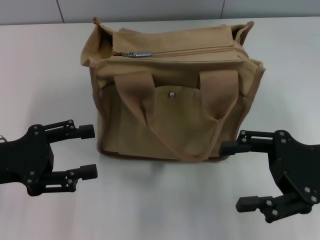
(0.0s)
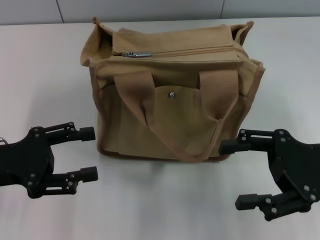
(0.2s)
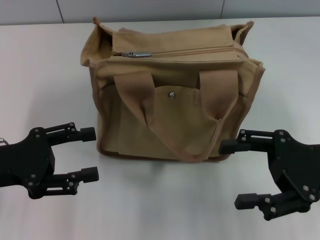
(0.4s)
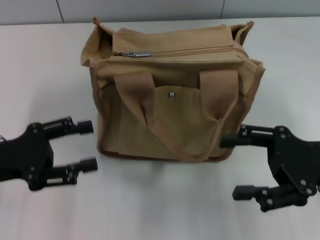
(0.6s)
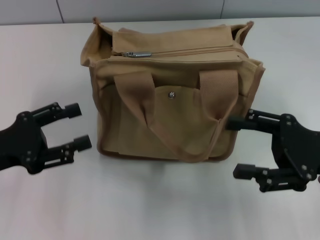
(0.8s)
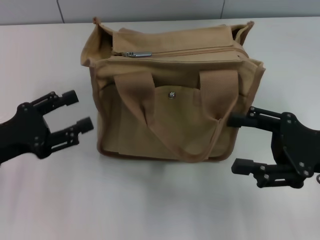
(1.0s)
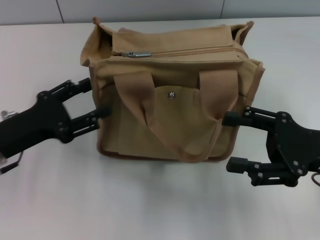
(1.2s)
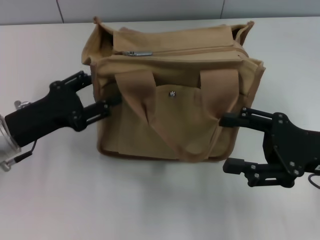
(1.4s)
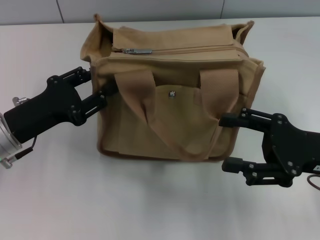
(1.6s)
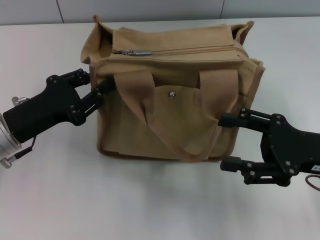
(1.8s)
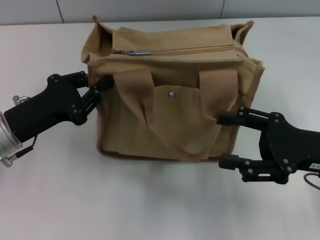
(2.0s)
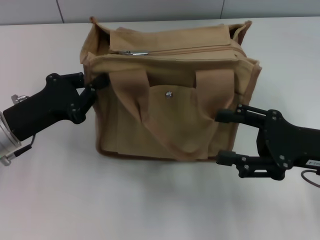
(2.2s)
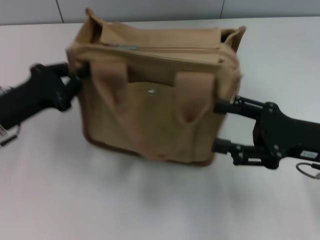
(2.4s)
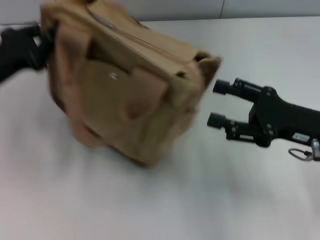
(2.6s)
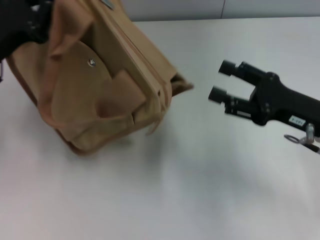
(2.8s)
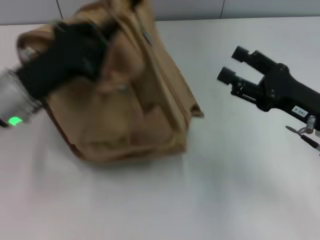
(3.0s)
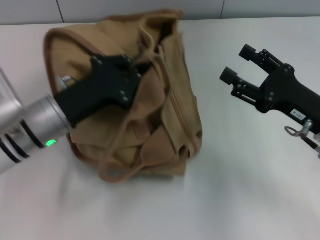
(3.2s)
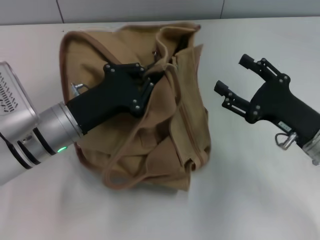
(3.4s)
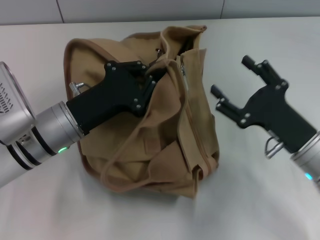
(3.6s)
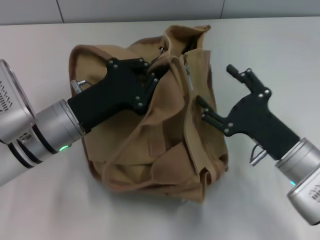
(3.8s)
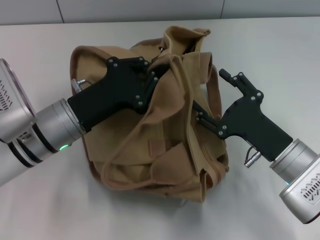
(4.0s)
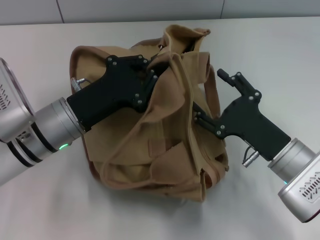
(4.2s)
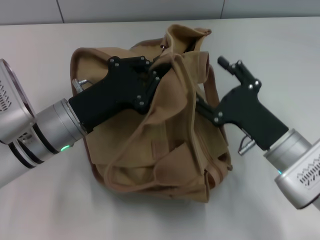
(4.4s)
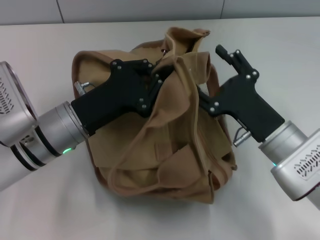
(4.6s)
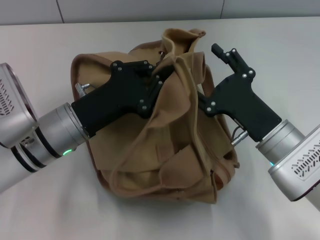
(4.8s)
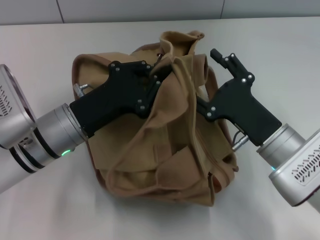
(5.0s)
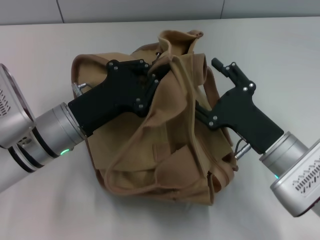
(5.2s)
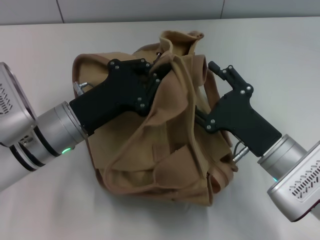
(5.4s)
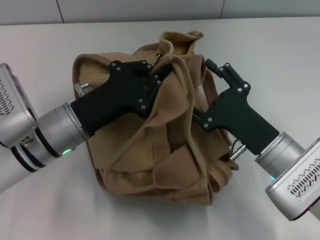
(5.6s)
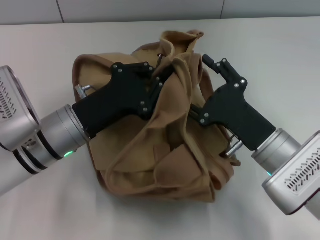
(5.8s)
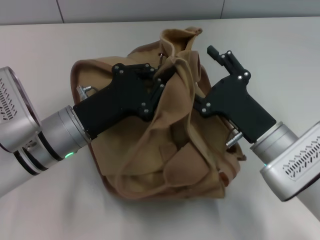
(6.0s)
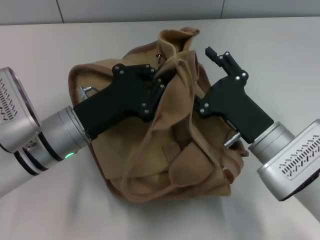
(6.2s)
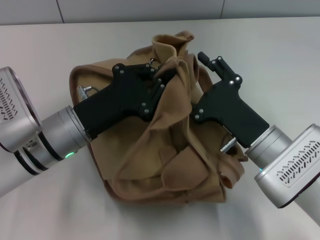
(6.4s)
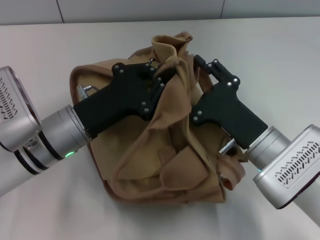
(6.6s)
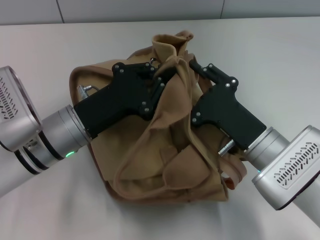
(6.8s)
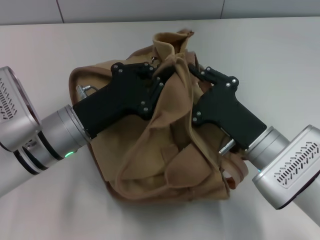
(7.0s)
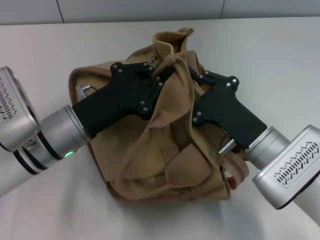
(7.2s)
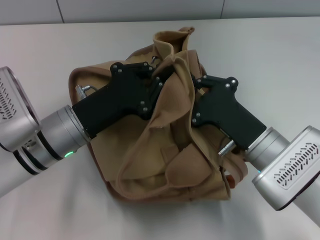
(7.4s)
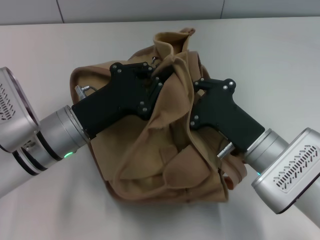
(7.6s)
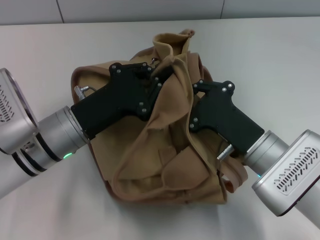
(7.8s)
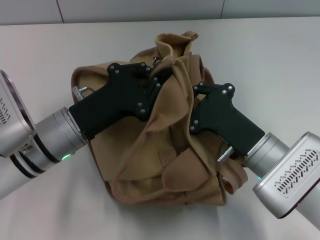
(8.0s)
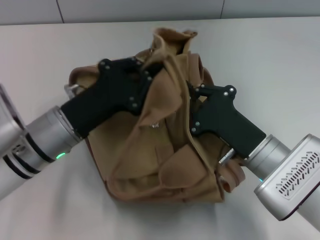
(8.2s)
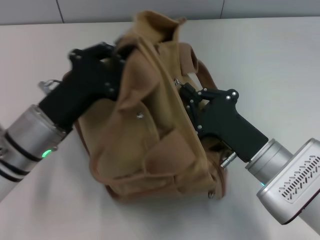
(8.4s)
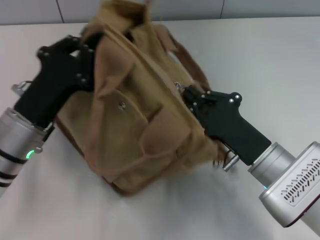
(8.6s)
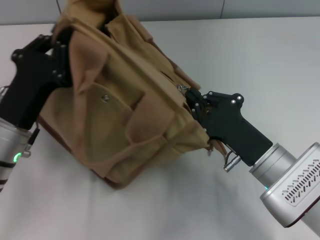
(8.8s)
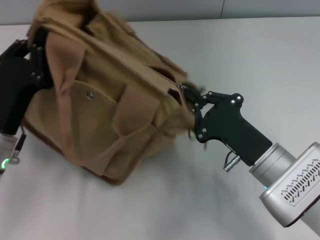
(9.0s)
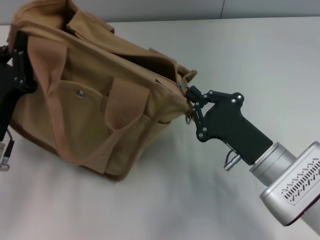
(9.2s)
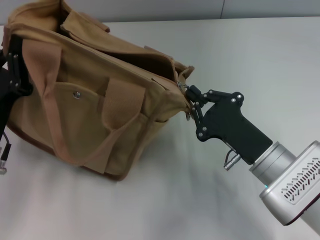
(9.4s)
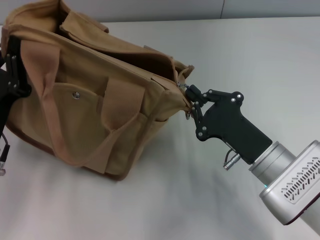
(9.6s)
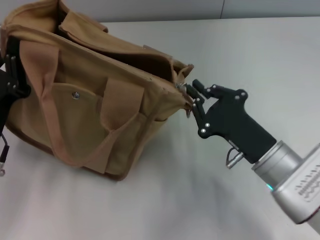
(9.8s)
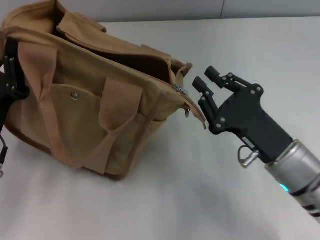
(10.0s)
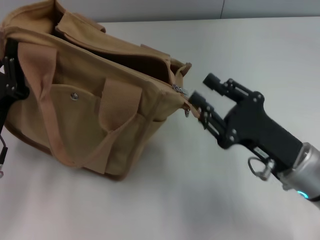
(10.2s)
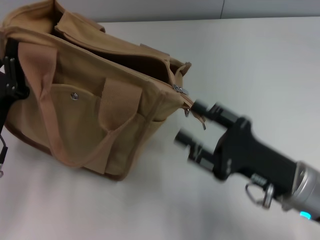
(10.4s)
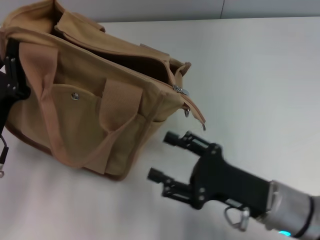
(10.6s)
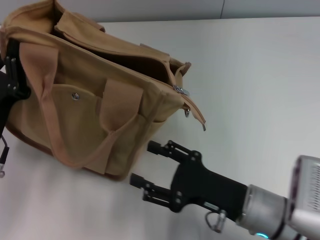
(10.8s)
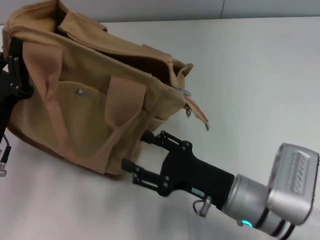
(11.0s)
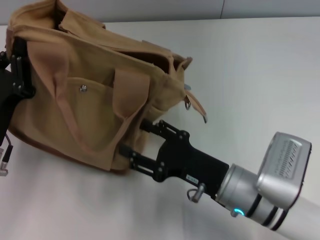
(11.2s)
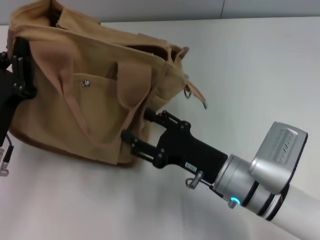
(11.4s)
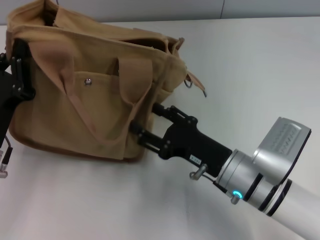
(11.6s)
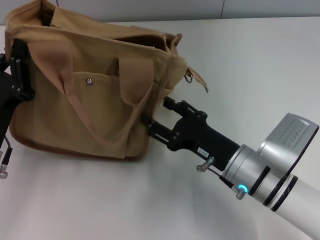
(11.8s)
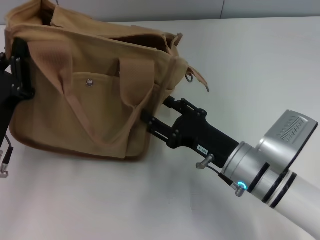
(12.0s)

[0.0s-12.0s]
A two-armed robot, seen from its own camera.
Step, 0.0s to 9.8s: Pull open the zipper with your right hand.
0.0s to 1.6s: The left gripper changes place by about 5 cm.
1.6s to 3.0s: The left gripper changes place by roughly 5 cm, and closes up.
3.0s to 4.4s: The left gripper moves to the right, some 5 cm. Meanwhile the right gripper heads to the left, covering some 5 cm.
6.0s to 7.6s: The right gripper closes.
7.6s to 9.0s: The left gripper moves to the left, some 5 cm.
9.0s to 10.4s: The right gripper opens.
10.4s to 12.0s: The right gripper moves to the left, roughly 5 cm.

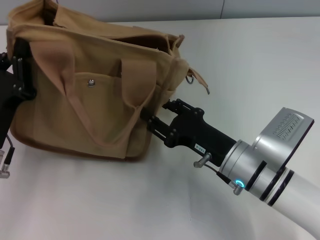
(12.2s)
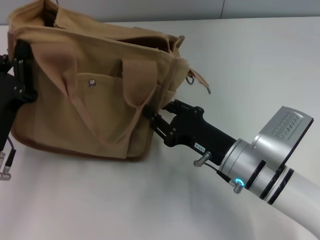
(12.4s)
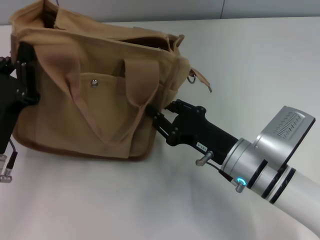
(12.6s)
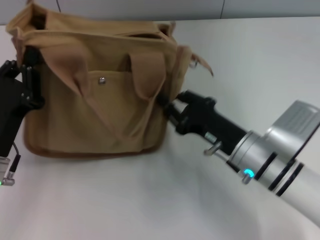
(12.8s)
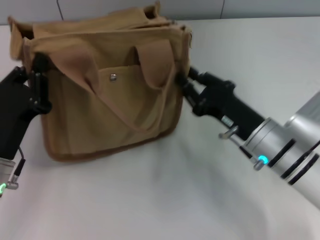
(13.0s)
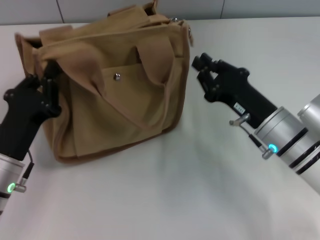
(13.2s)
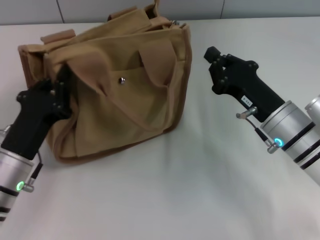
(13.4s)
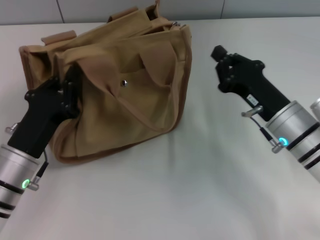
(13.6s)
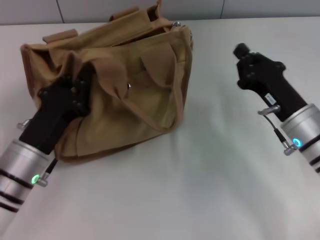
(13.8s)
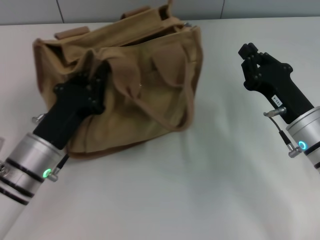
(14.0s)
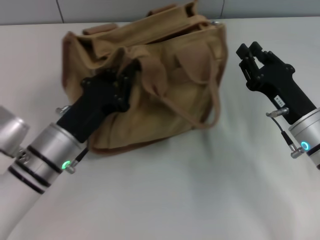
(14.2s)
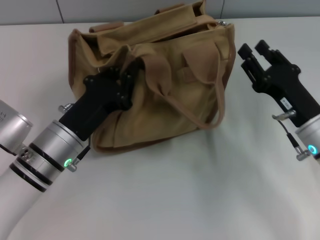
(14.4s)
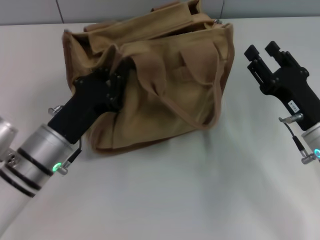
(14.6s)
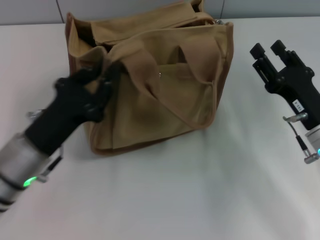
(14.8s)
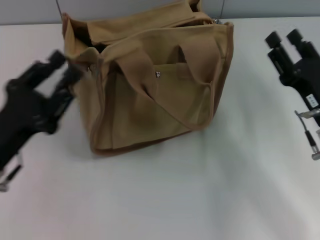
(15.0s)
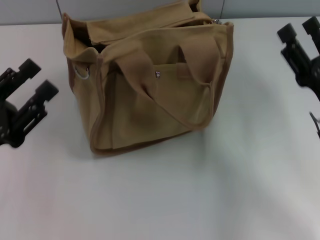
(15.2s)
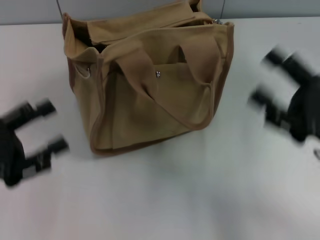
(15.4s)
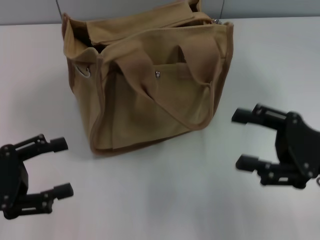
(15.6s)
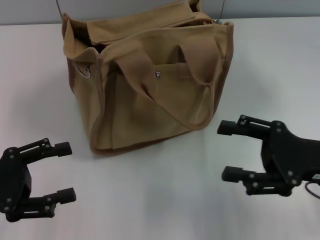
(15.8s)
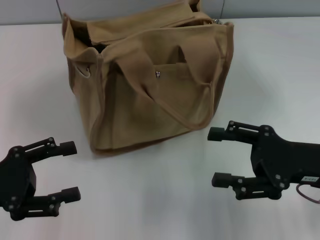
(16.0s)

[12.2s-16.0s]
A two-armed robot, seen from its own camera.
Step, 12.2s to 14.8s: Grab the bag with your left hand.
12.2s to 13.4s: The right gripper heads to the right, covering some 5 cm, and closes its fingers.
13.4s to 14.8s: The right gripper goes some 5 cm to the right, and opens.
14.8s to 16.0s: The right gripper changes place by some 5 cm, while the left gripper moves to the left, some 10 cm, and opens up.

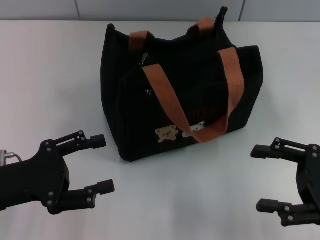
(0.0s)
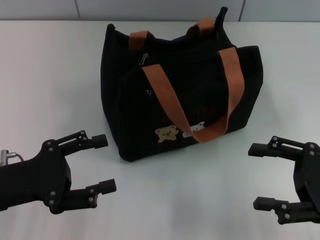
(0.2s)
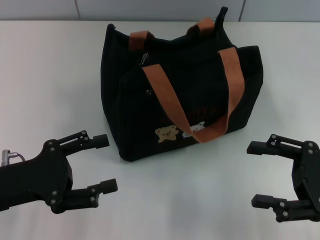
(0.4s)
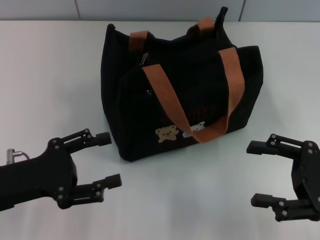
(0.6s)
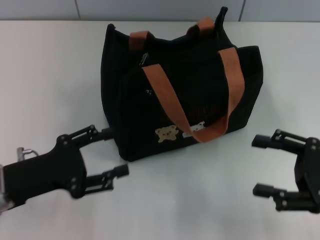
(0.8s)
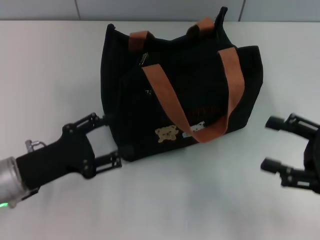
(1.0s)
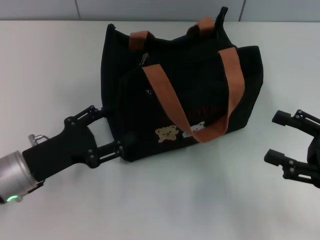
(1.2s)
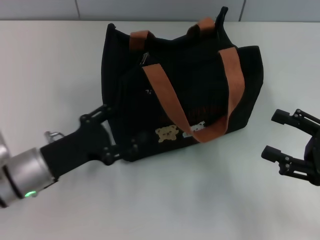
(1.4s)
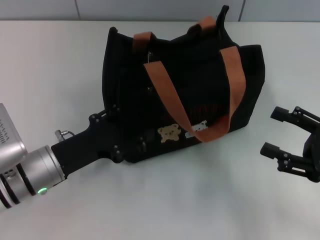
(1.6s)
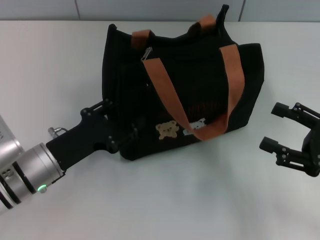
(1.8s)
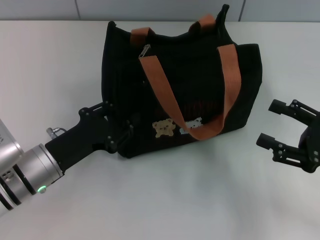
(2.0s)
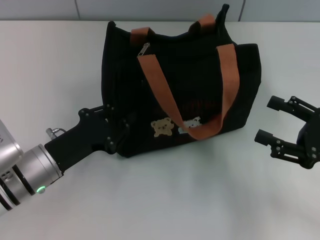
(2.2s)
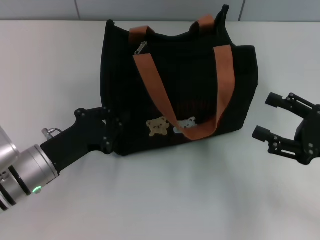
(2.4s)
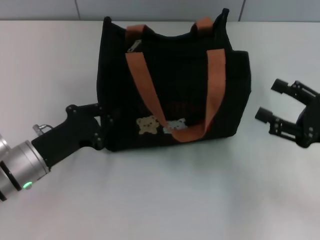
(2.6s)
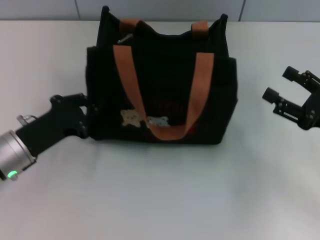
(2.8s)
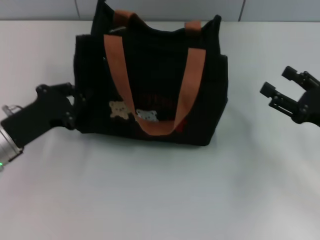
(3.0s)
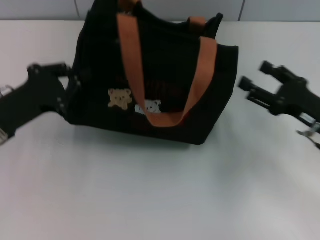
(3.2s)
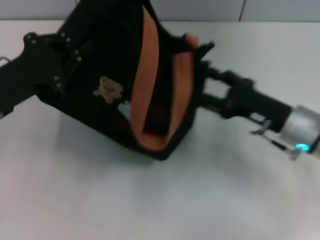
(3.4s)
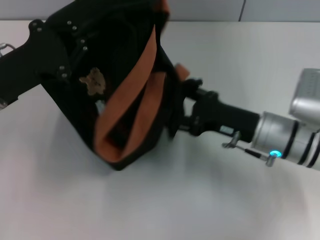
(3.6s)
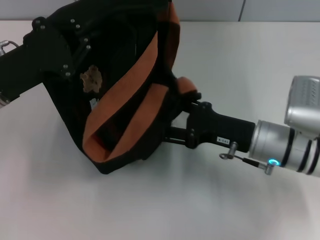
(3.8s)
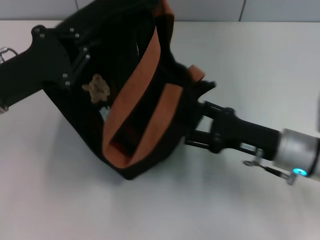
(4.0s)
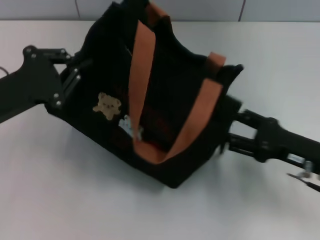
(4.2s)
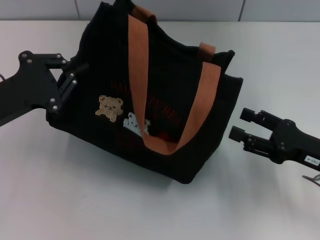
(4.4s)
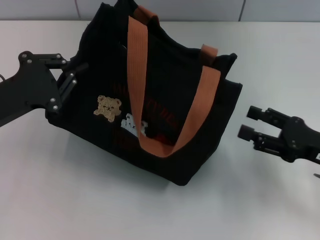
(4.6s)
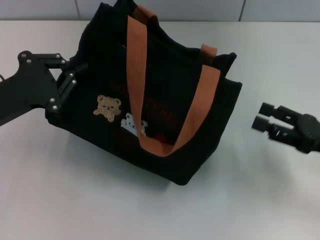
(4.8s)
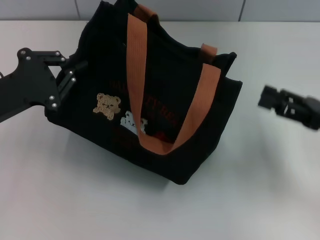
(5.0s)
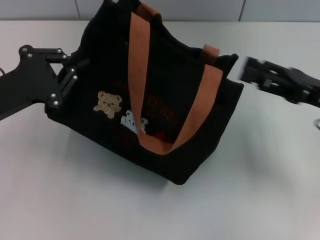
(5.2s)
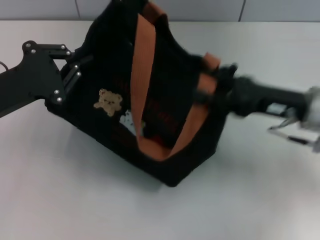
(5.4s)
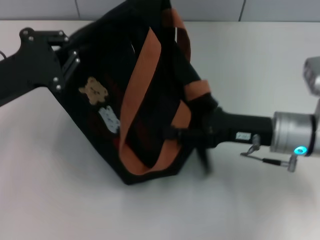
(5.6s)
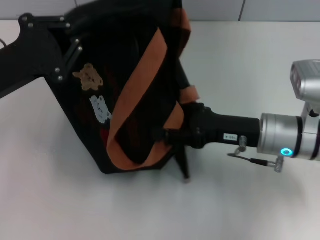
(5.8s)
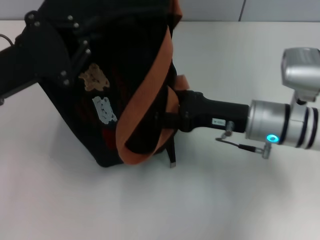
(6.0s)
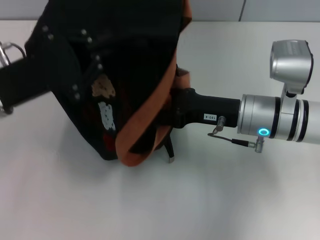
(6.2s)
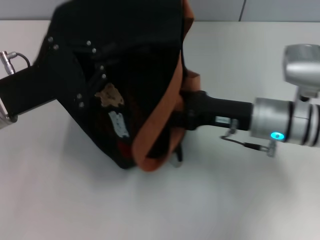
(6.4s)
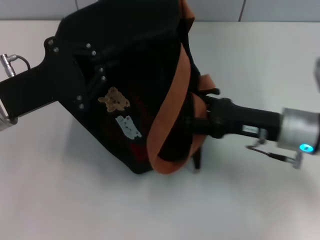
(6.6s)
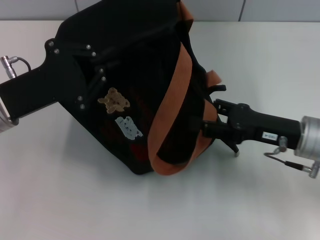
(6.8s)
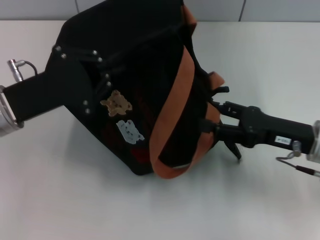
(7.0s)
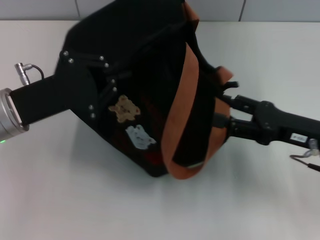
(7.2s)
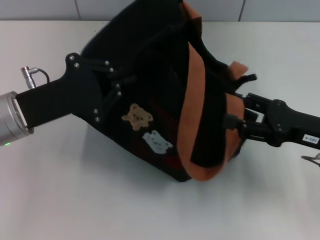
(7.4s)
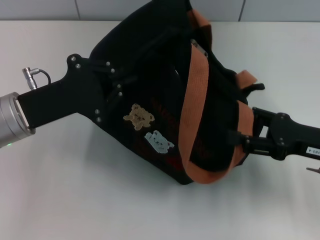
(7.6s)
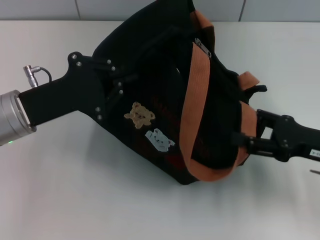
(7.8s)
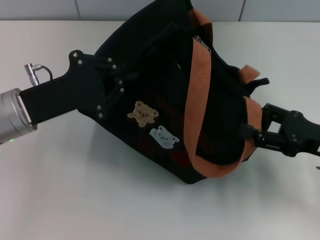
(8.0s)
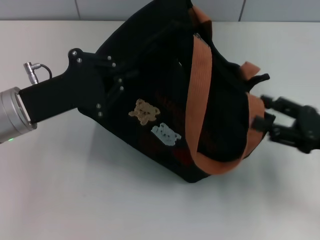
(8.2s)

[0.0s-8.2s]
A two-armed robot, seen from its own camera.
0.0s to 1.6s: The left gripper moves to the right and downward, some 10 cm.
1.6s to 3.2s: The left gripper heads upward and to the left, covering roughly 10 cm, and closes its fingers, while the right gripper moves forward, some 5 cm.
3.2s to 5.0s: The right gripper reaches approximately 10 cm to the left, then returns.
5.0s to 6.6s: The right gripper is displaced to the left by about 10 cm.
6.6s to 8.2s: The right gripper shifts about 10 cm to the right and backward.
